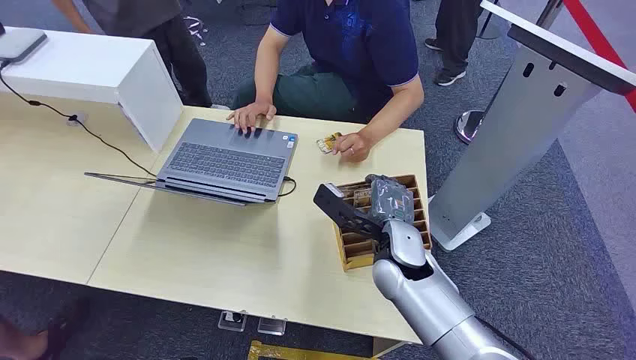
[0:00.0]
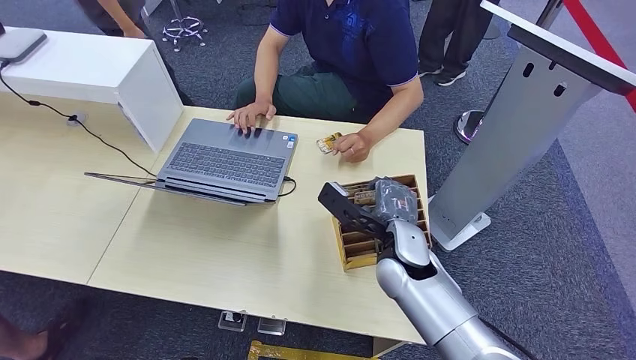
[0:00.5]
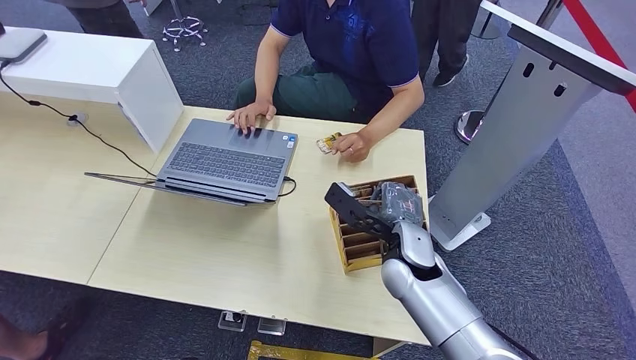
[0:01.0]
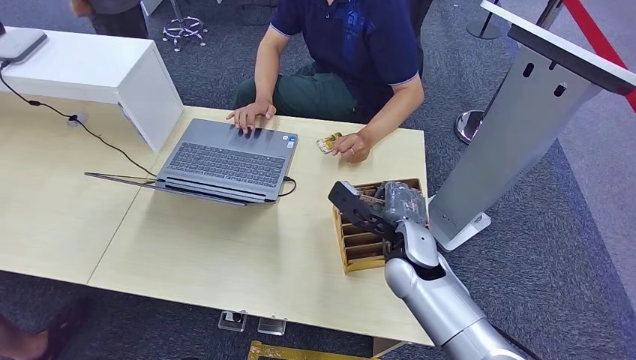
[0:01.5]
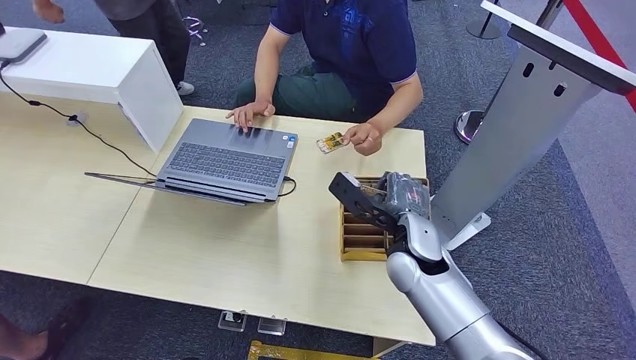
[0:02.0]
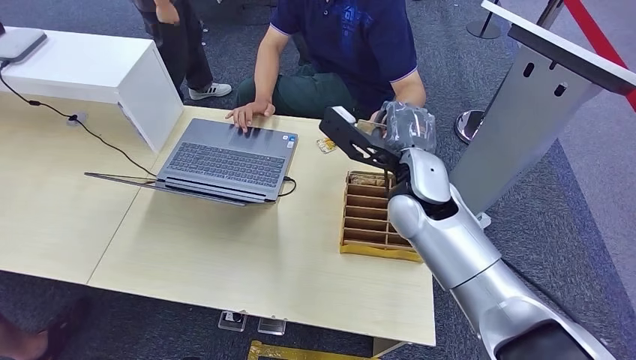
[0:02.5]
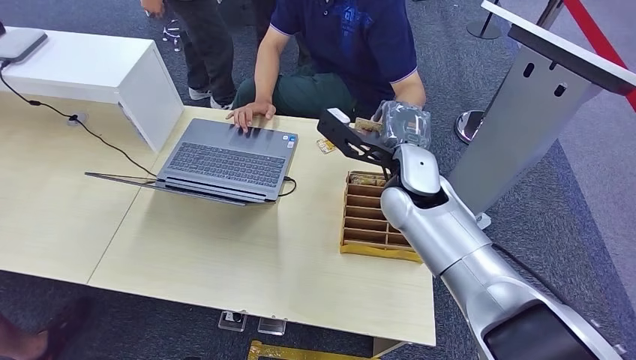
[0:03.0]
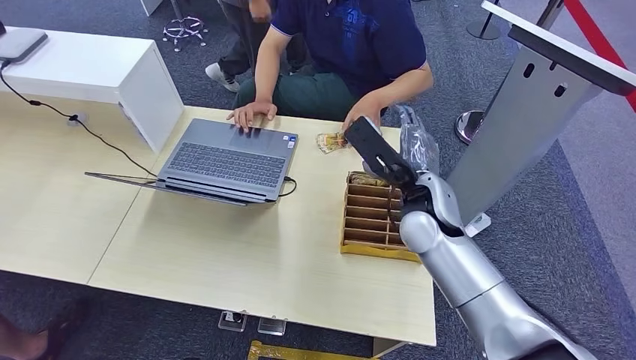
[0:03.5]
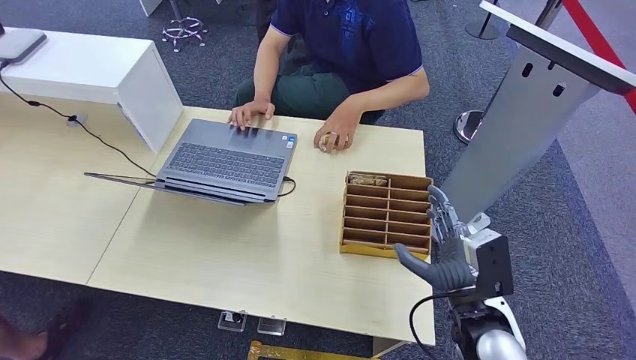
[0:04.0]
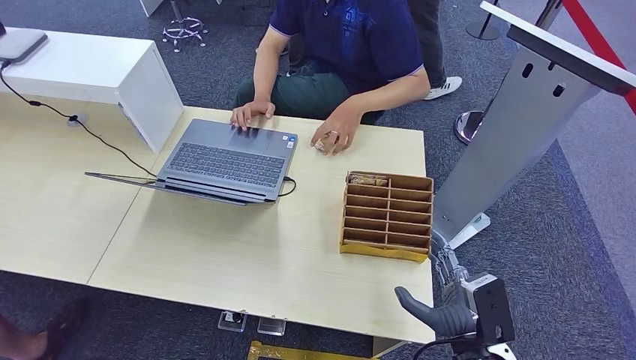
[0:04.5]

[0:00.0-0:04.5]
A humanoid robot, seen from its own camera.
Step, 0:00.0 to 0:02.0: Pick up the key card from the card box.
Step, 0:02.5 to 0:04.5: Hand the key card to the target.
0:02.0 to 0:04.5: The right hand travels backward and to the right by about 20 cm.

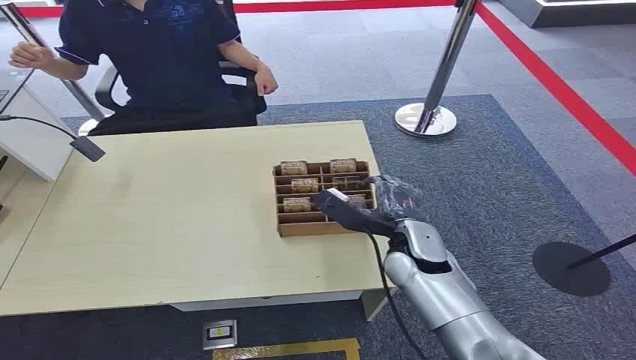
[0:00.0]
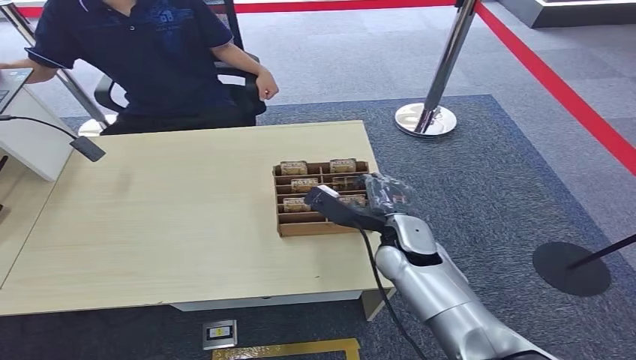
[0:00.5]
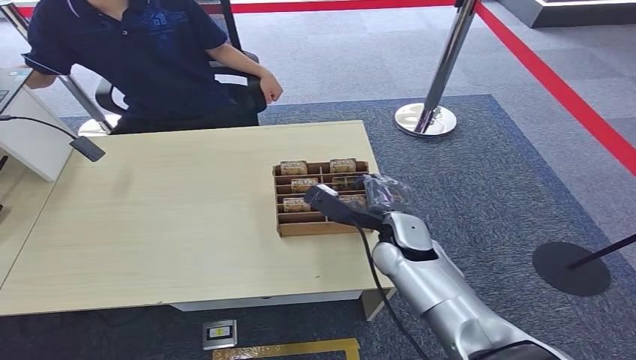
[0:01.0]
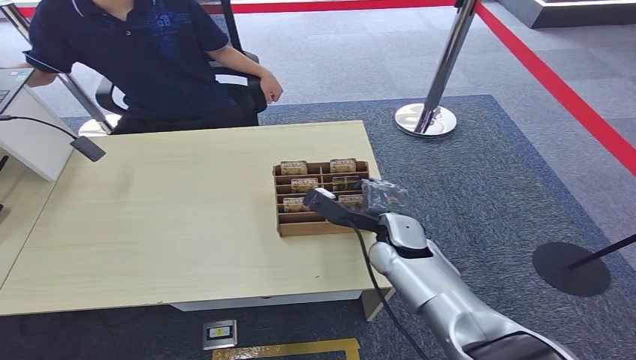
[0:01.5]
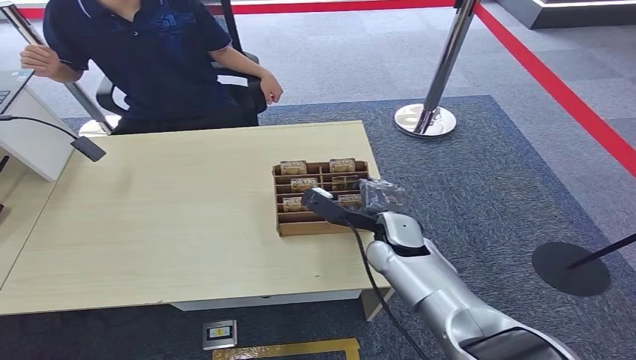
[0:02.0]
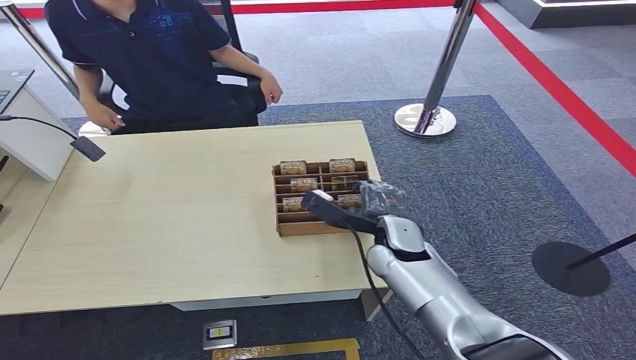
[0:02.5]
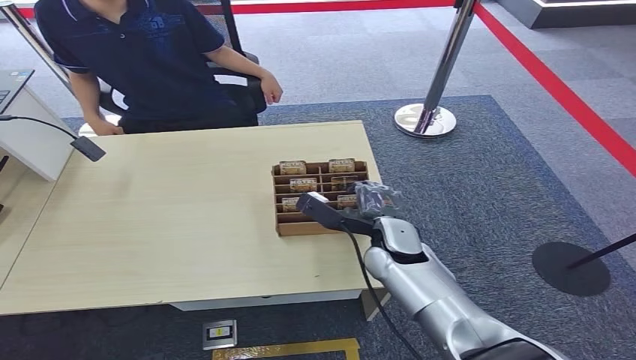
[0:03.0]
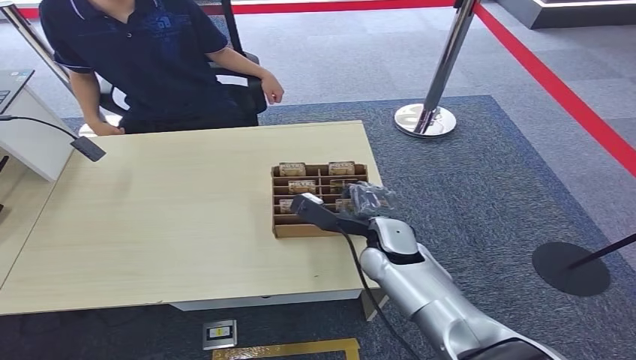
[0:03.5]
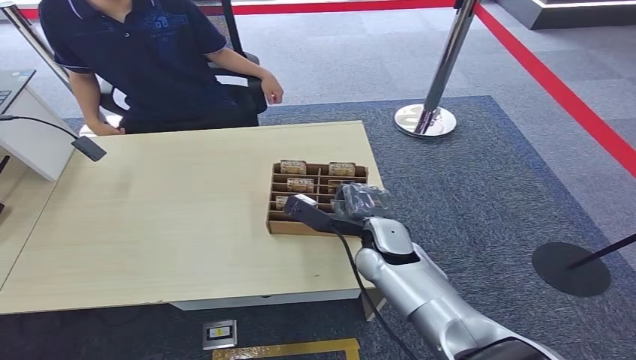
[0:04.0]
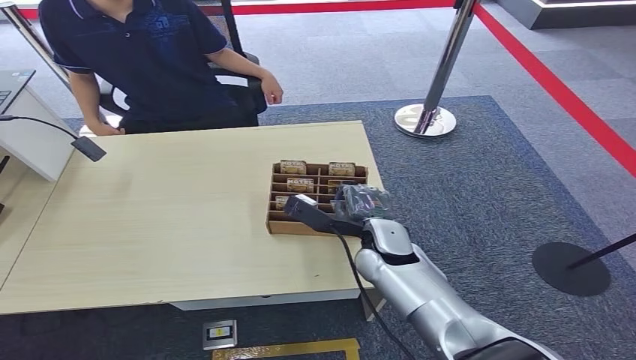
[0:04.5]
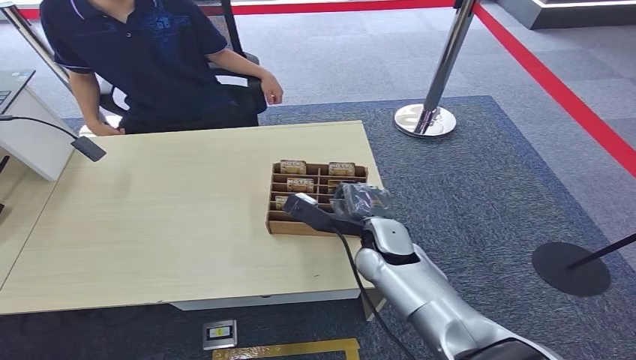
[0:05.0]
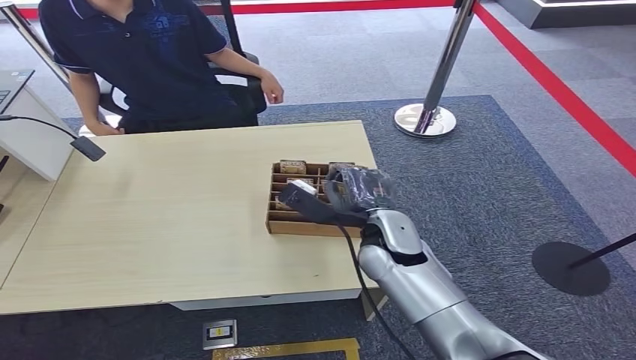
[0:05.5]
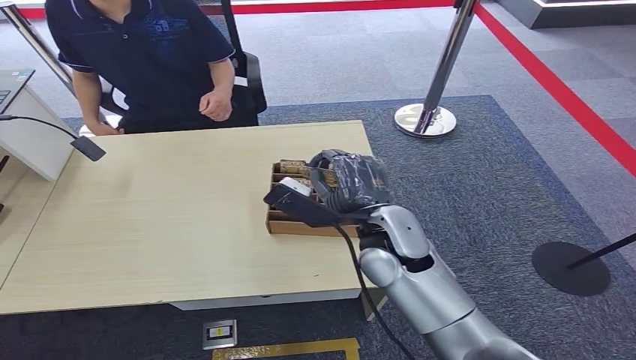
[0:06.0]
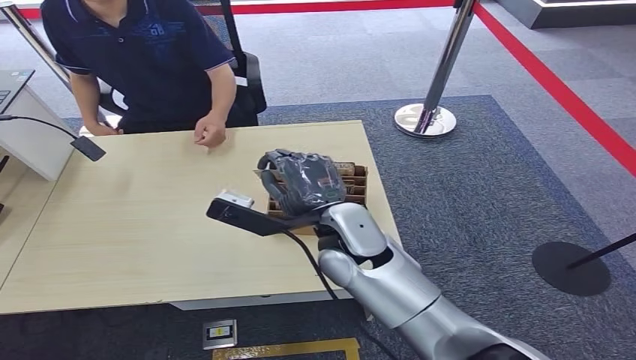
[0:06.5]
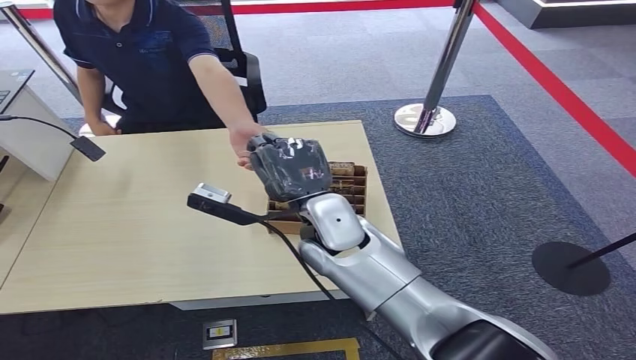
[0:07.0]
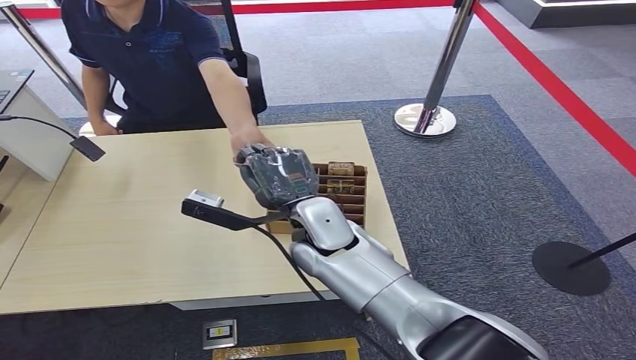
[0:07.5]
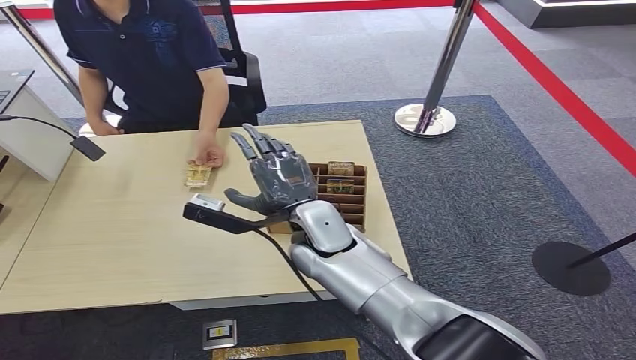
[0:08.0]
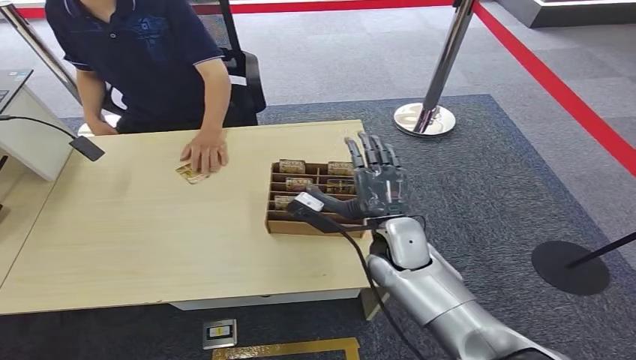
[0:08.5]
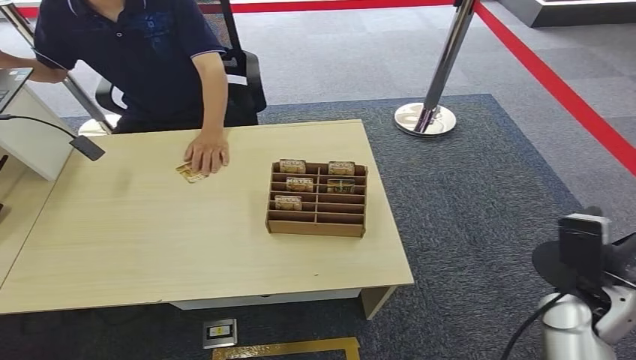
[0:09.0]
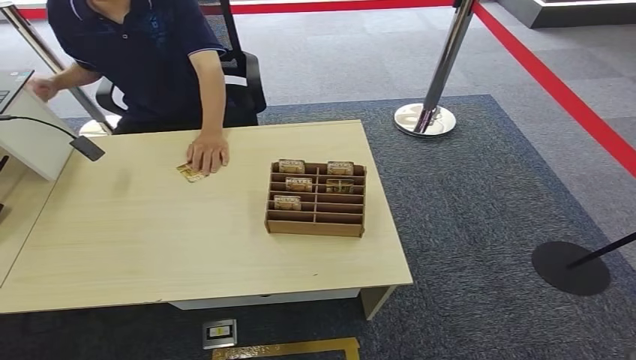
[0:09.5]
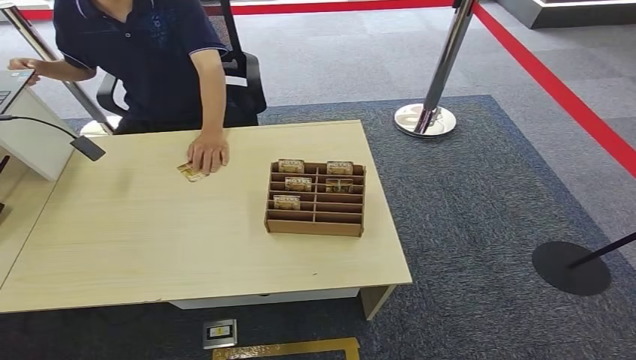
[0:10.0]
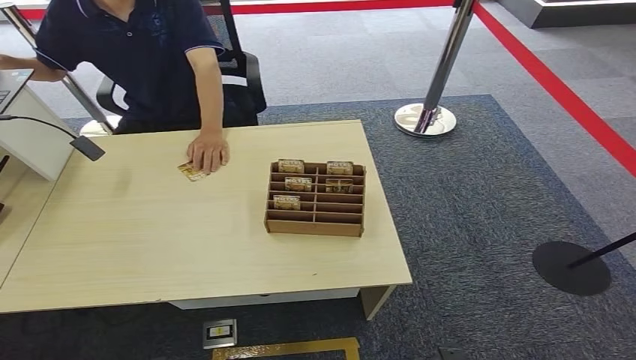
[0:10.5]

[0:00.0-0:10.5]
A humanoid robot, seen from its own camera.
Step, 0:00.0 to 0:05.0: Pick up the key card from the card box.
Step, 0:05.5 to 0:10.5: Hand the key card to the target.
0:02.0 to 0:04.0: The hands move only a little.
0:04.0 to 0:06.5: The right hand goes approximately 10 cm upward and to the left.
0:06.5 to 0:08.5: The right hand shifts approximately 10 cm downward and to the right.
0:08.5 to 0:10.5: The right hand goes roughly 40 cm backward, downward and to the right.
